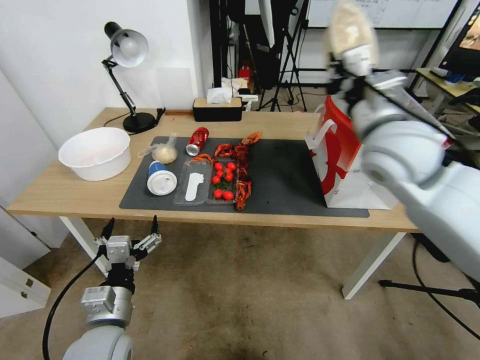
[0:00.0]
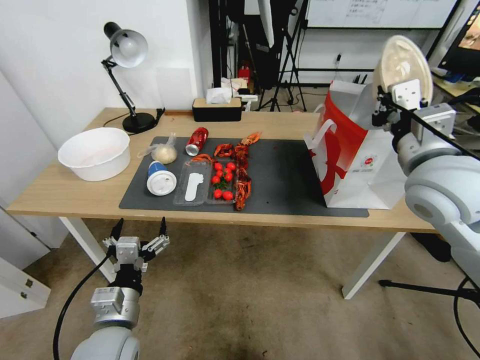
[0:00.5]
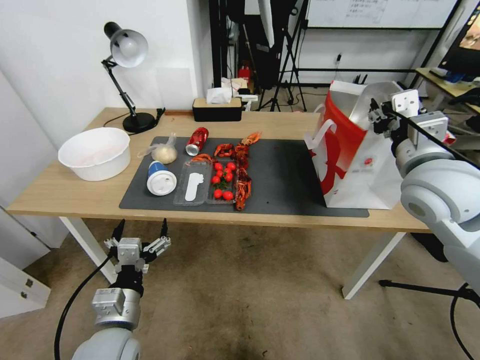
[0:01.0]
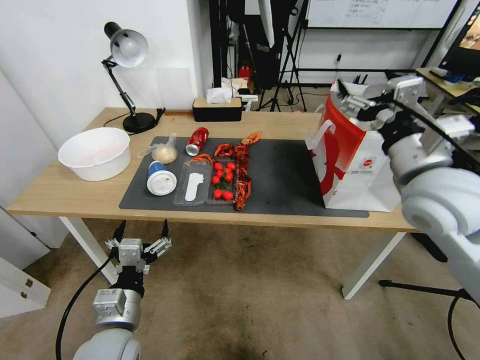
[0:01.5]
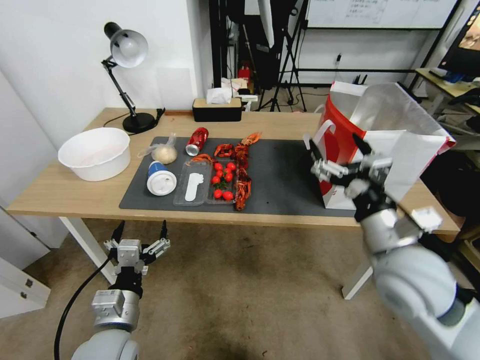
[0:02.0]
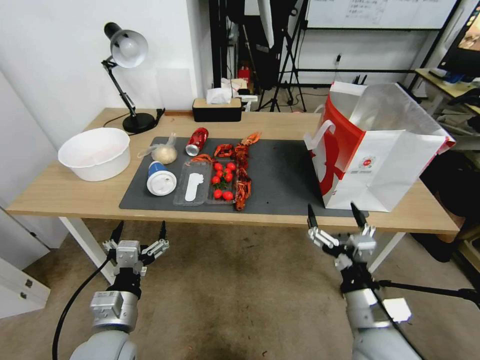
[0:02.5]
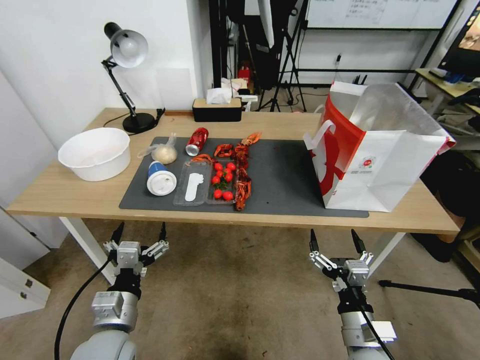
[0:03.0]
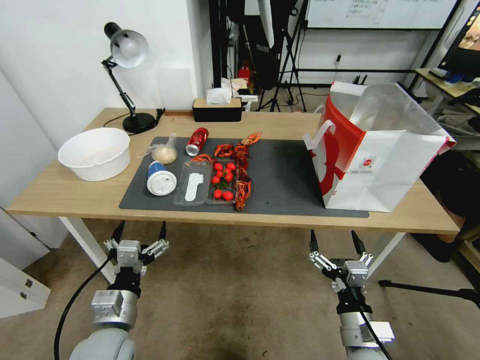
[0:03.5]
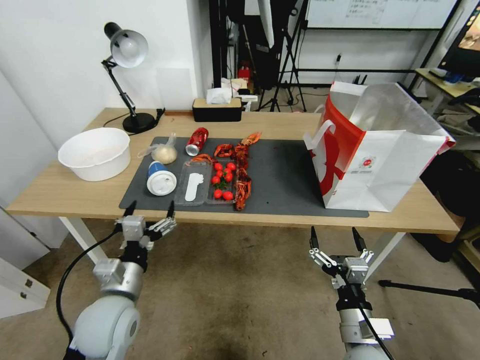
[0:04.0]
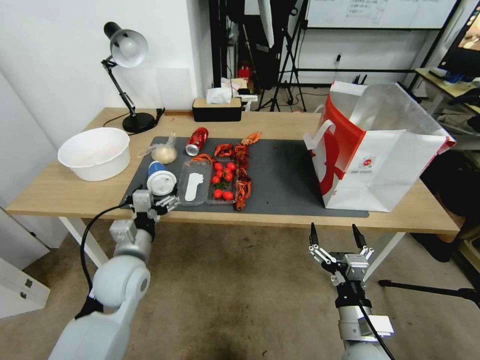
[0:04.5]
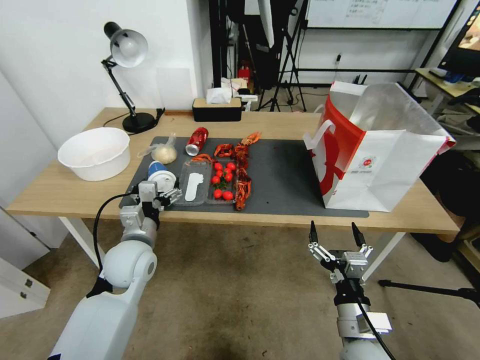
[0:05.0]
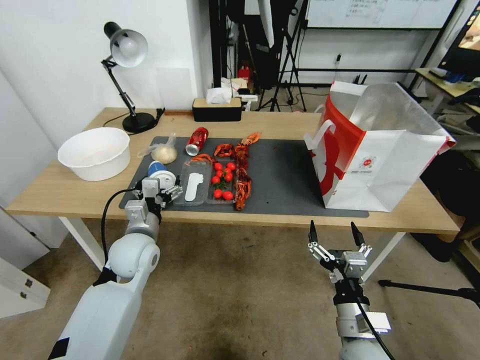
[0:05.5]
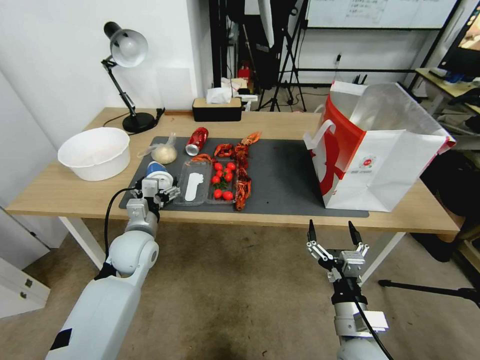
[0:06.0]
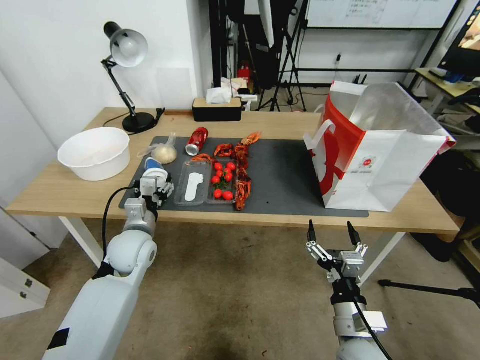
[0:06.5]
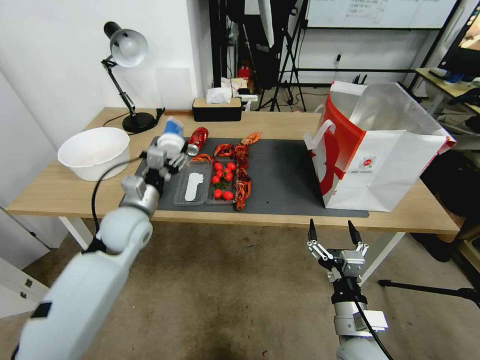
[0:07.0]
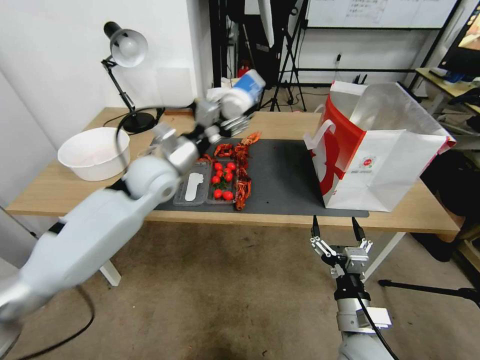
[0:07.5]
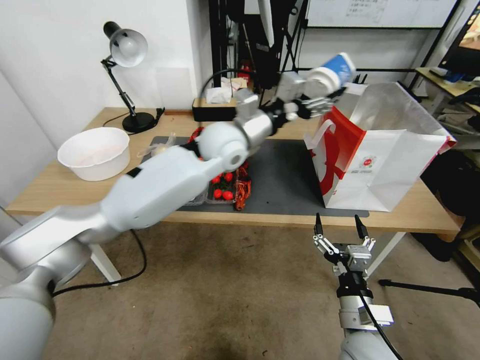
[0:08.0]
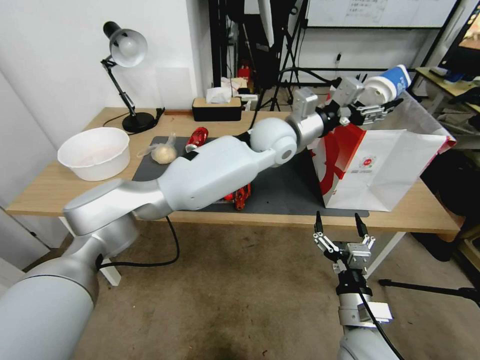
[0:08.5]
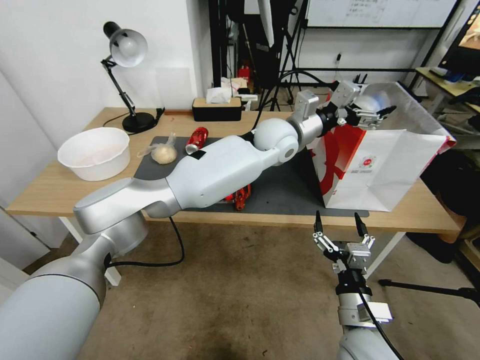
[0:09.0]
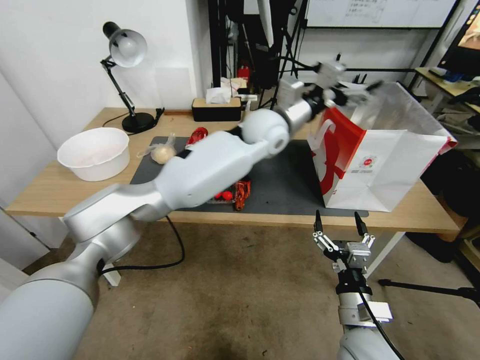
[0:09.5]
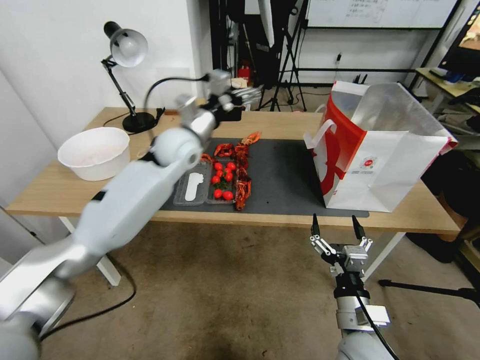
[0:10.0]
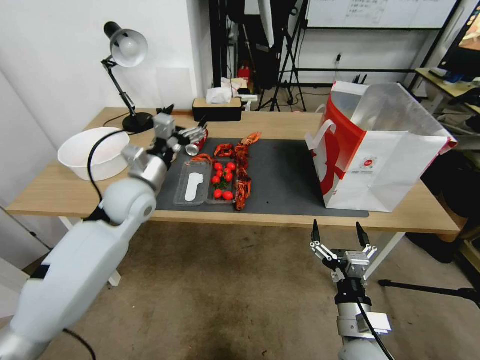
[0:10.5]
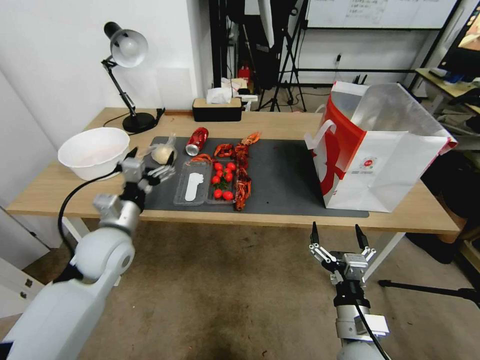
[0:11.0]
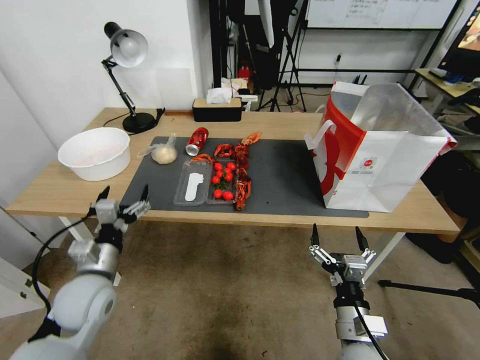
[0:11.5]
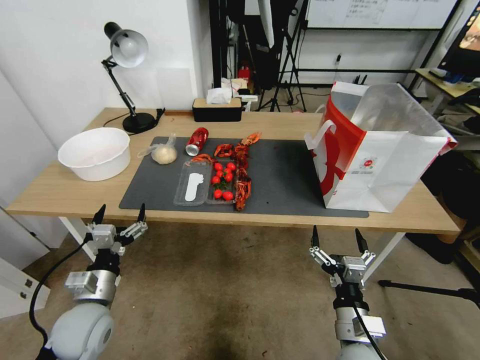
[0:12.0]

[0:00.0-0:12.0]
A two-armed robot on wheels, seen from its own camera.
0:00.0 to 0:02.0: The right gripper moves downward and backward, some 20 cm, and opens its fingers.
0:02.0 to 0:04.0: The right gripper is displaced downward and backward by roughly 20 cm.
0:04.0 to 0:06.0: The left gripper is displaced forward by roughly 15 cm.
0:06.0 to 0:08.0: The left gripper goes roughly 30 cm upward, to the right and forward, and closes up.
0:08.0 to 0:10.0: The left gripper shifts approximately 10 cm to the left, and opens up.
0:10.0 to 0:12.0: The left gripper shifts about 40 cm backward, downward and to the left.

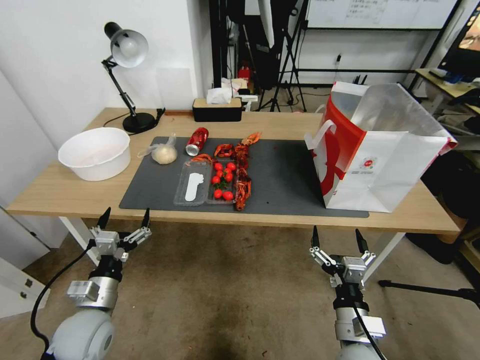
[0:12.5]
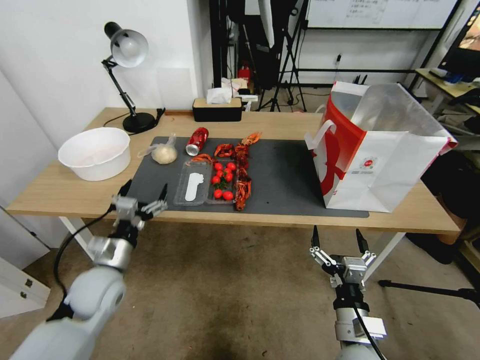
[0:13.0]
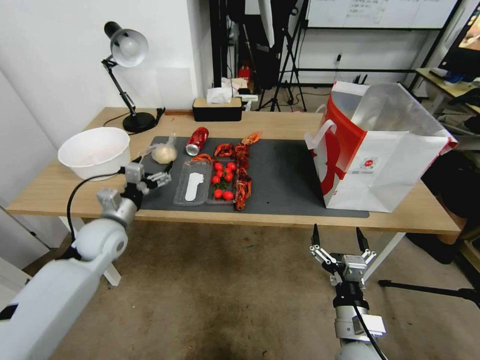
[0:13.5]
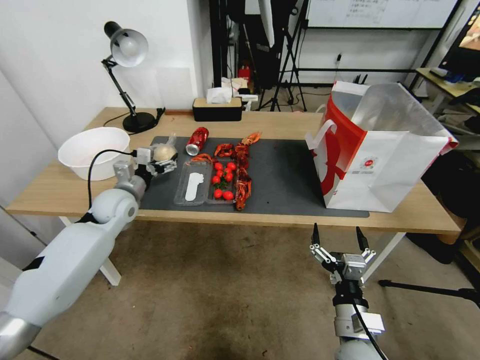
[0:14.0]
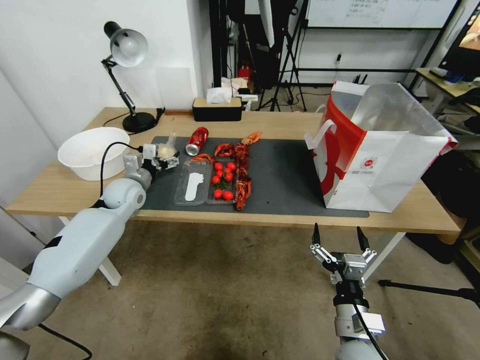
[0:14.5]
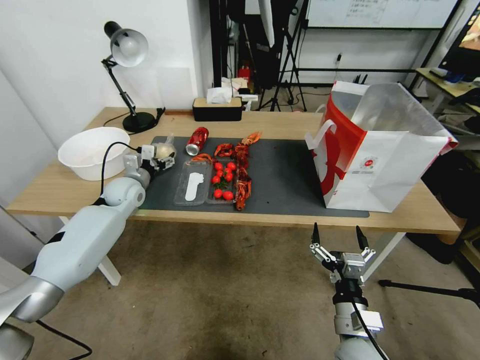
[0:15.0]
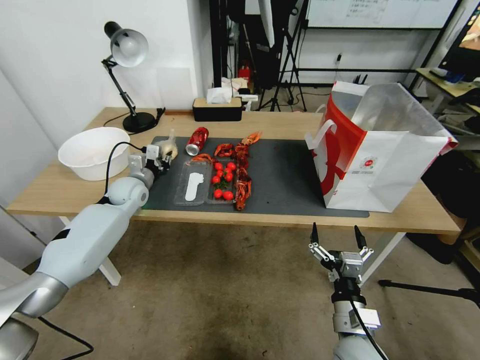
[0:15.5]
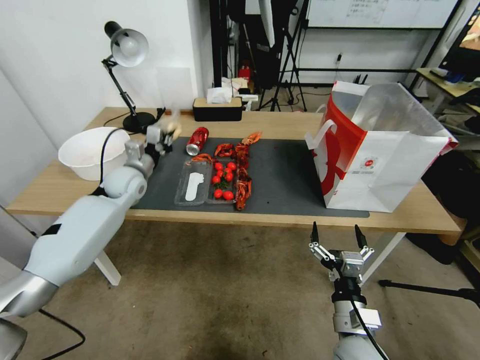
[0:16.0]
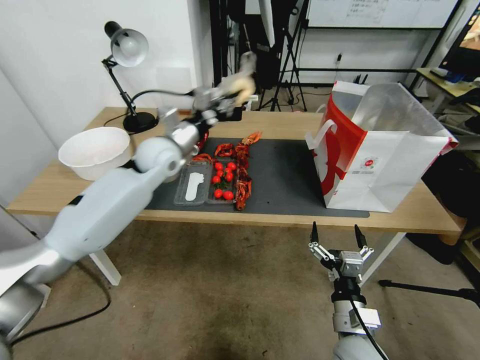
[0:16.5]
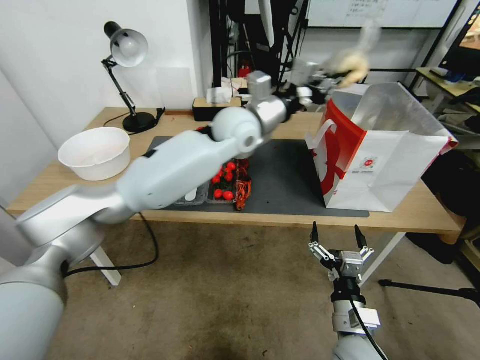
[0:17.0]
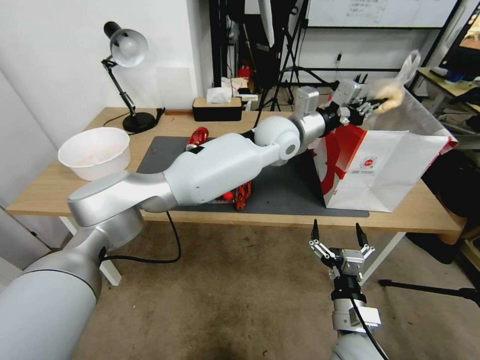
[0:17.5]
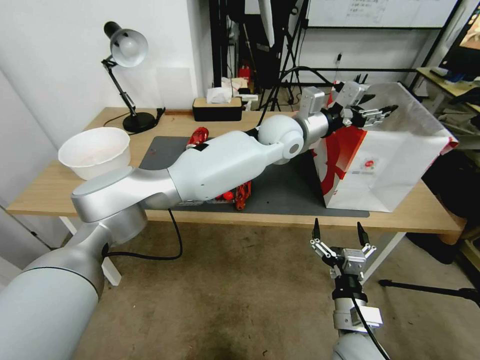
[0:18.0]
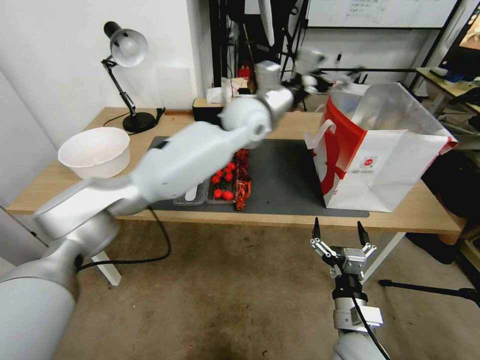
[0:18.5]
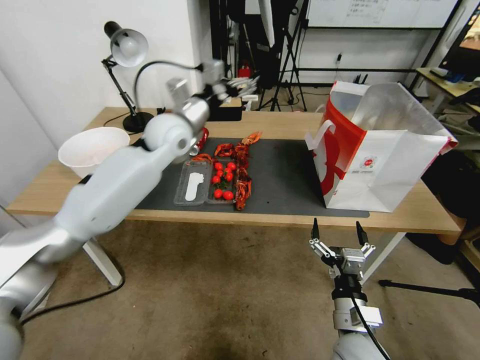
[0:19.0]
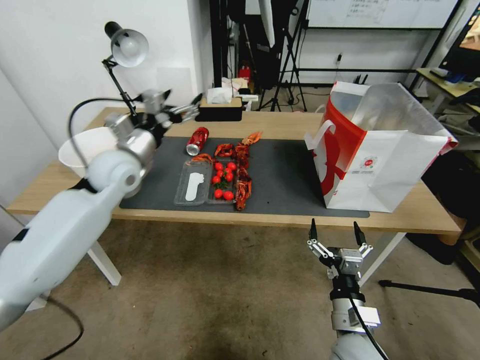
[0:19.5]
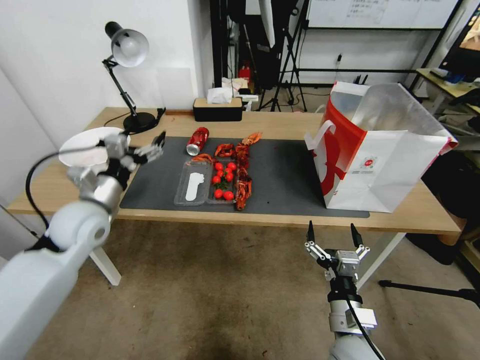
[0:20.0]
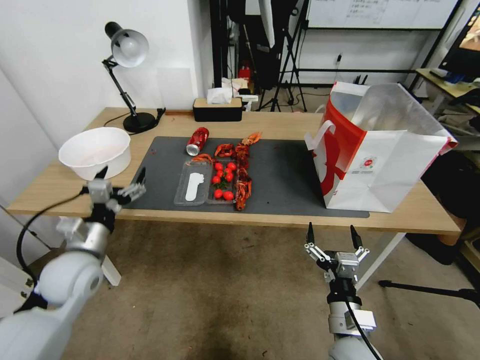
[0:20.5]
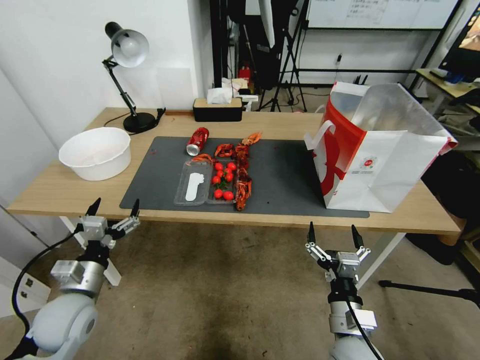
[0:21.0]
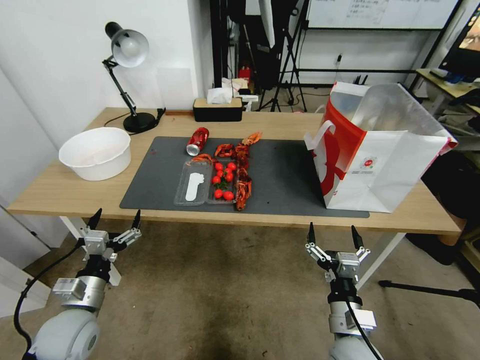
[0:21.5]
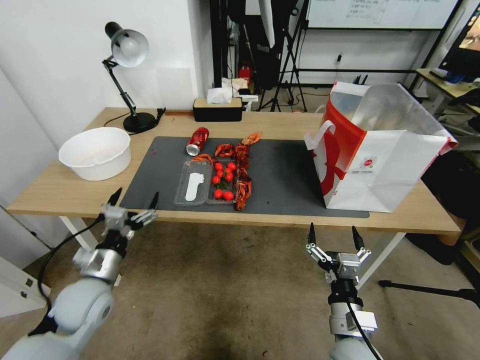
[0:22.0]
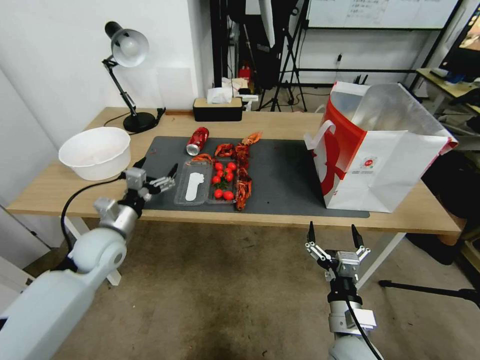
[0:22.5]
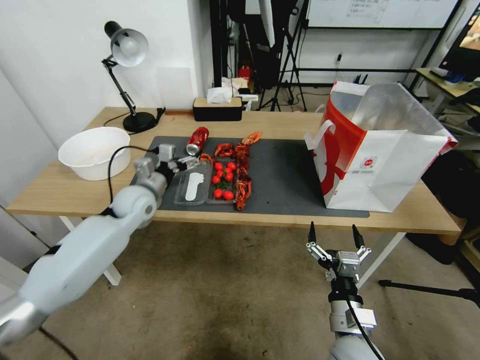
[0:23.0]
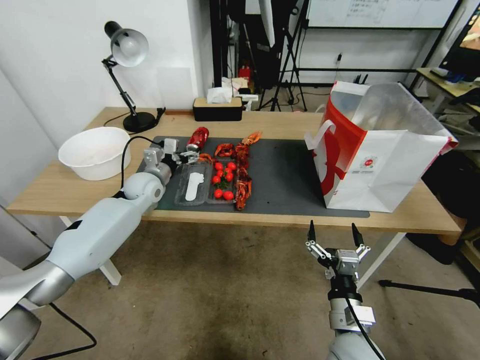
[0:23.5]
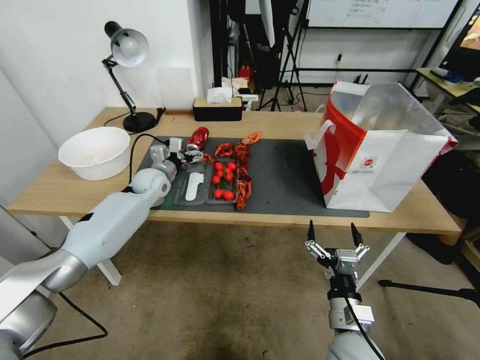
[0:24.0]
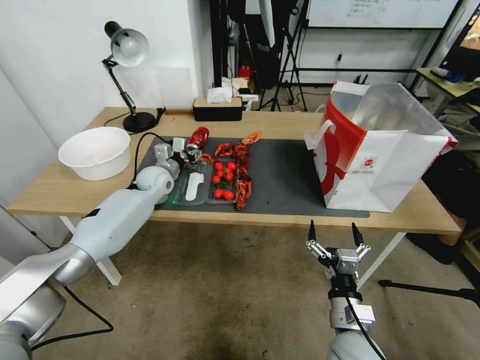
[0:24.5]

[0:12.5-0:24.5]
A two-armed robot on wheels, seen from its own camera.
0:12.5 to 0:14.5: The left gripper goes roughly 30 cm forward.
0:14.5 to 0:16.5: The left gripper shifts roughly 15 cm upward and to the right, and closes its fingers.
0:16.5 to 0:18.5: The left gripper heads to the right and upward, covering some 25 cm, and opens up.
0:18.5 to 0:20.5: The left gripper goes some 50 cm to the left, backward and downward.
0:20.5 to 0:22.5: The left gripper heads forward, covering approximately 5 cm.
0:22.5 to 0:24.5: The left gripper travels forward by about 20 cm, and closes its fingers.

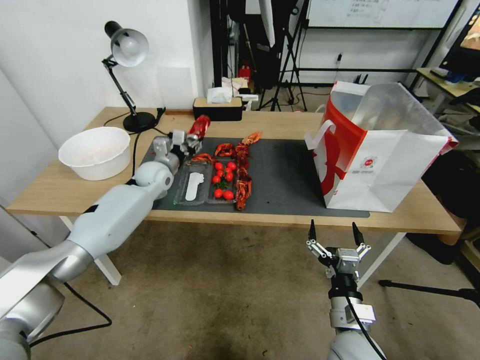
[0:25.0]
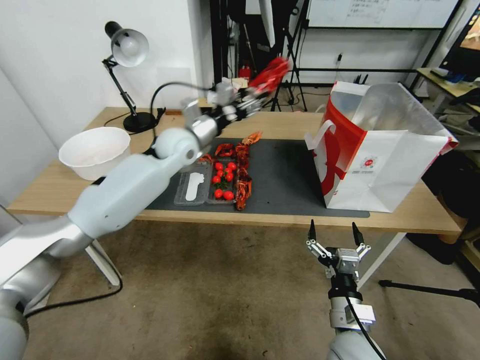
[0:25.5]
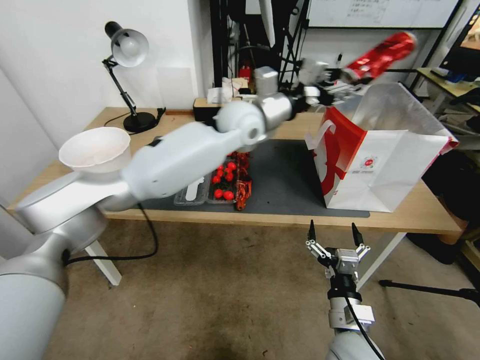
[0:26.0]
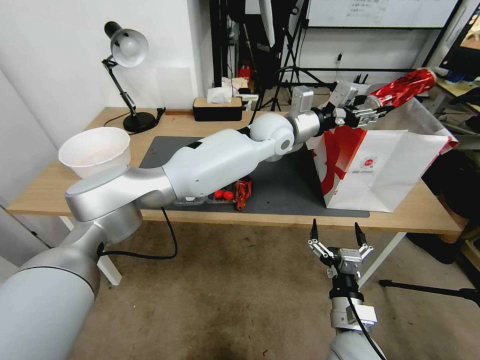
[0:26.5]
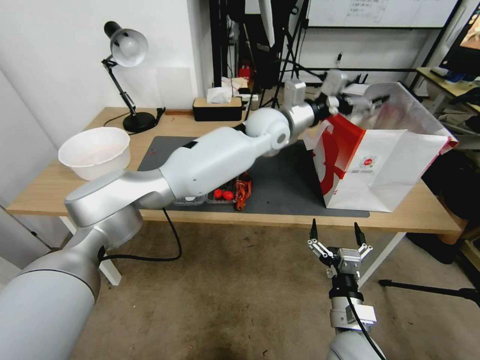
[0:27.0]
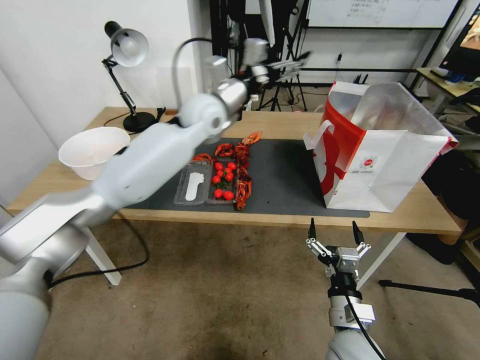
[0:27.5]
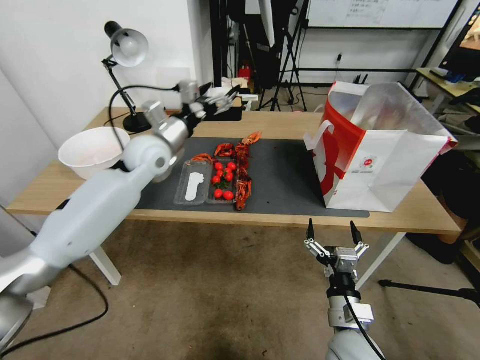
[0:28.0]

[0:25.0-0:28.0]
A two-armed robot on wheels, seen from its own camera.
0:25.0 to 0:26.5: The left gripper moves to the right and upward, approximately 35 cm.
0:26.5 to 0:28.0: The left gripper moves to the left, roughly 25 cm, and opens.
